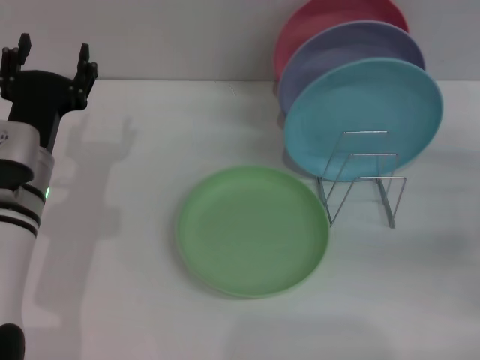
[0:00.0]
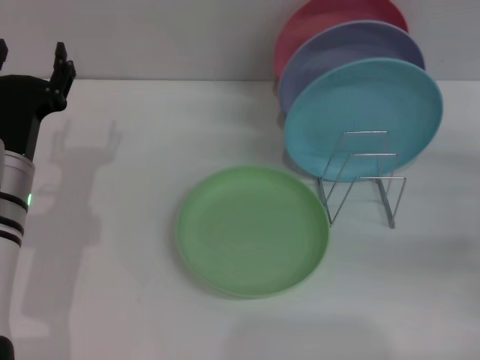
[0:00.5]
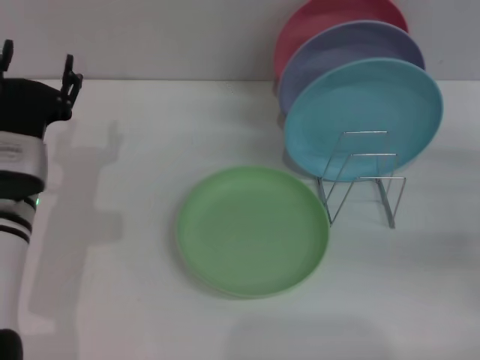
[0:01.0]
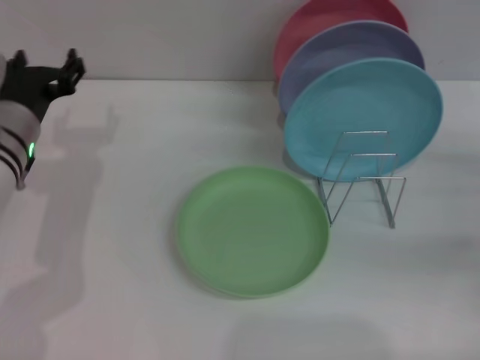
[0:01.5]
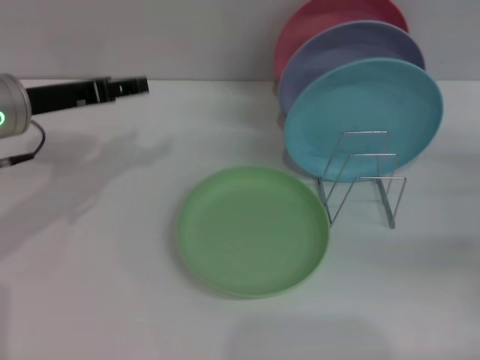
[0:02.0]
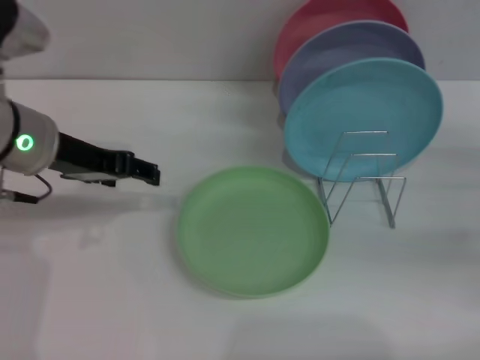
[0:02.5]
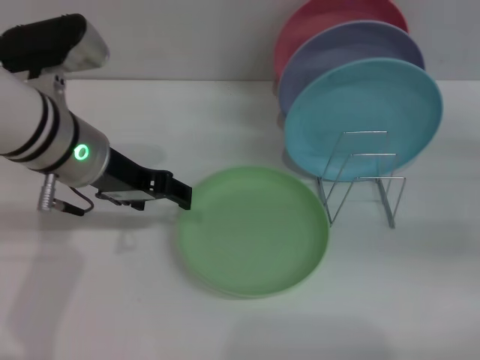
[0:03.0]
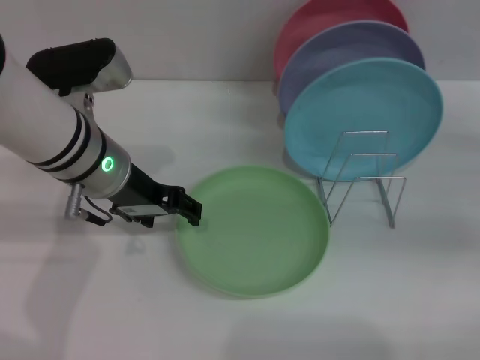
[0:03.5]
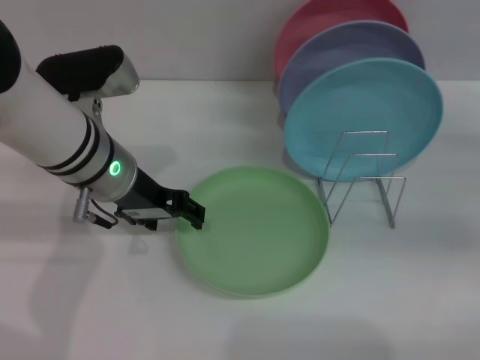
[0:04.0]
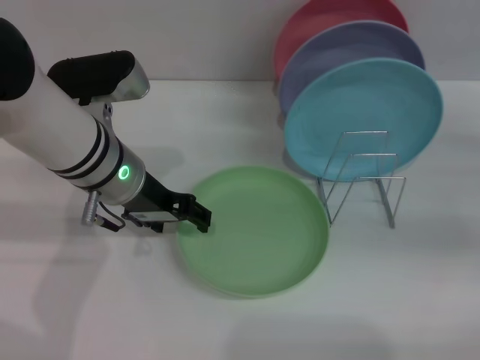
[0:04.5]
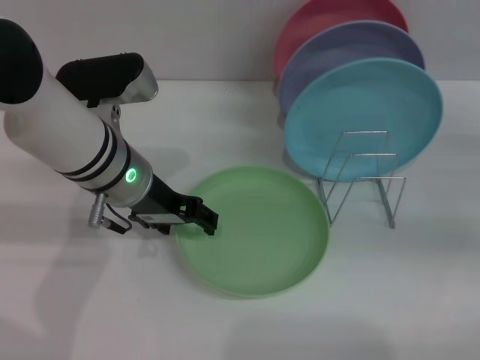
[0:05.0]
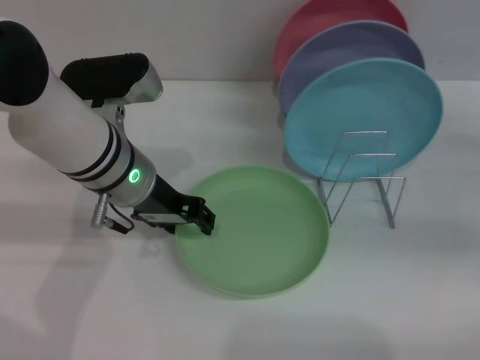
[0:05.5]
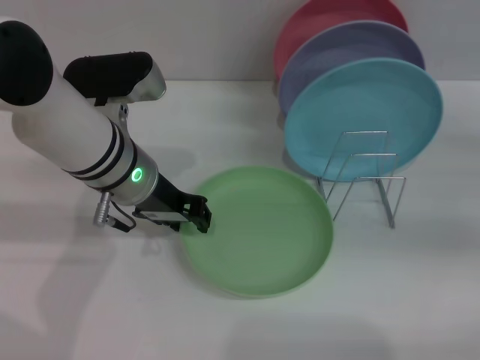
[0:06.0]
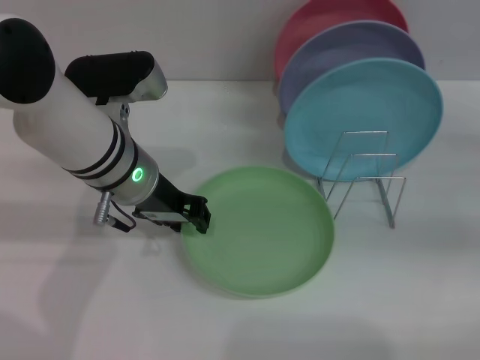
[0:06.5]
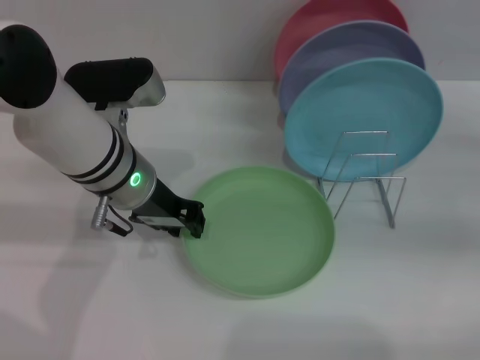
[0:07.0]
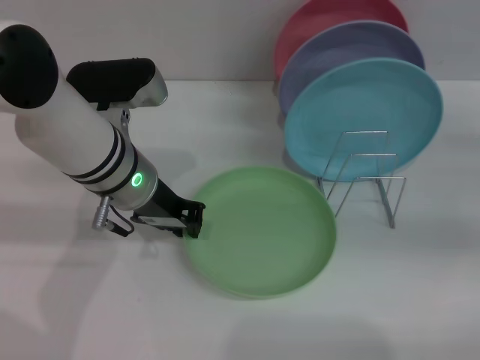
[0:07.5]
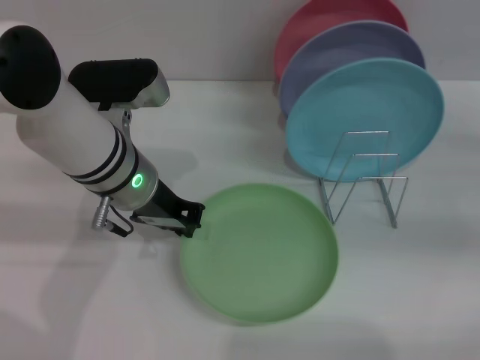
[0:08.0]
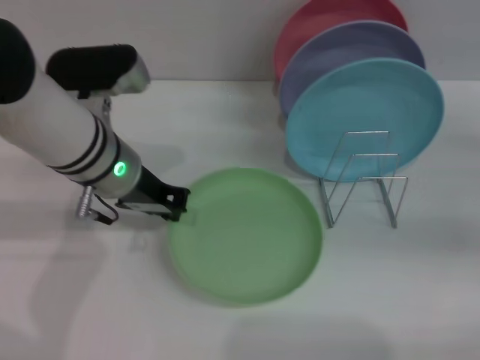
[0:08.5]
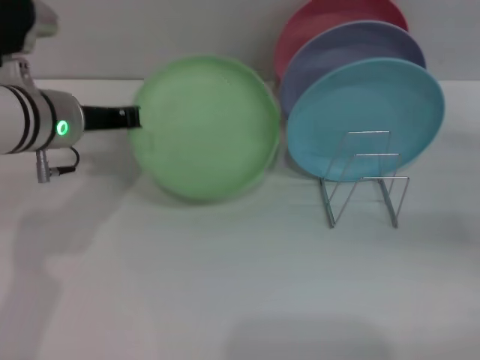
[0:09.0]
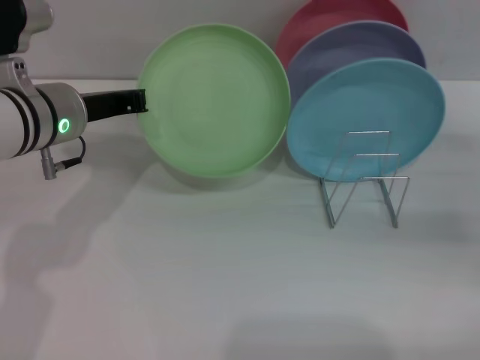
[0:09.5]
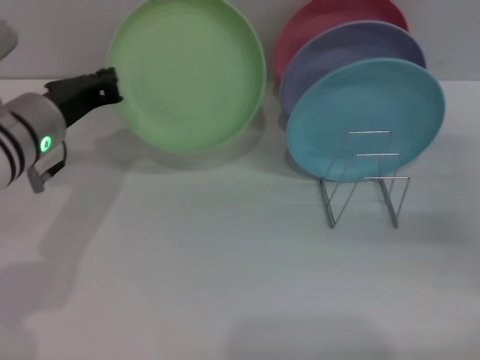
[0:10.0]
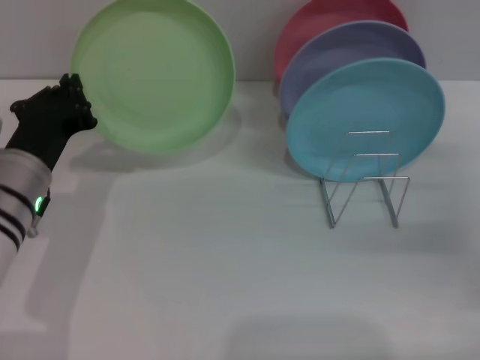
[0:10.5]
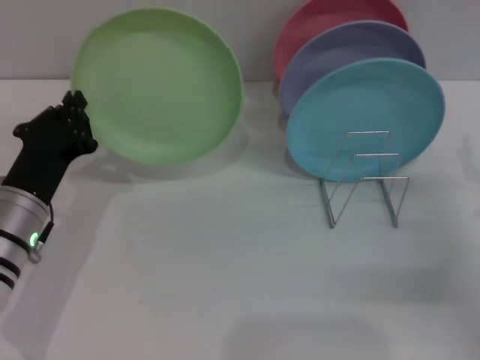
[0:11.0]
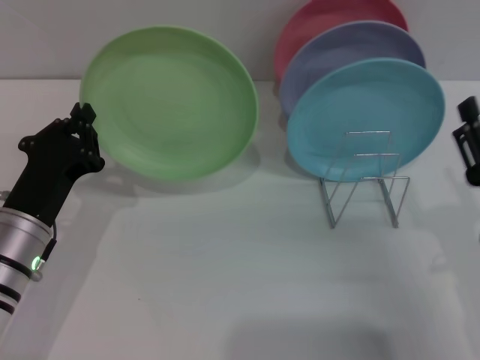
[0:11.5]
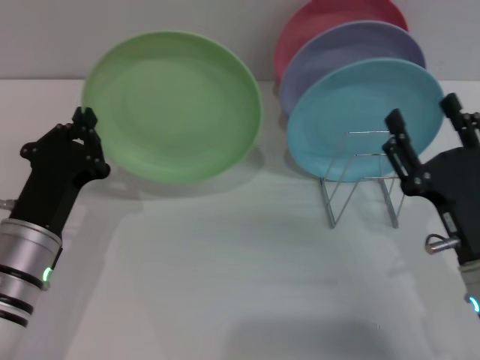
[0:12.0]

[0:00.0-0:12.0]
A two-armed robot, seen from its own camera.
Task of the whole recording: Grip the plate with one hand, pass it to the other, then set it on the shelf.
Step, 0:00.0 to 0:09.5: Pick up the plate with the left gripper.
0:00.0 to 0:02.0: The left gripper goes approximately 10 cm upward.
0:02.0 to 0:04.0: The left gripper shifts roughly 10 cm to the right.
0:04.0 to 0:06.0: The grippers move only a little.
0:06.0 to 0:08.0: The left gripper closes its fingers.
0:08.0 to 0:10.0: The left gripper is displaced to the left by approximately 10 cm.
0:10.0 to 0:12.0: The right gripper shifts some 20 cm to the left and backward; the left gripper goes approximately 15 cm backward and downward.

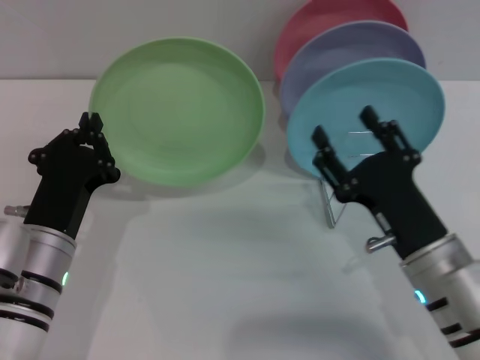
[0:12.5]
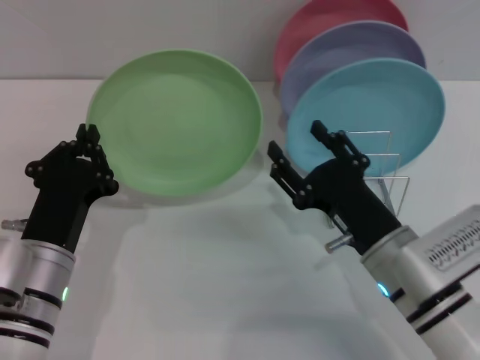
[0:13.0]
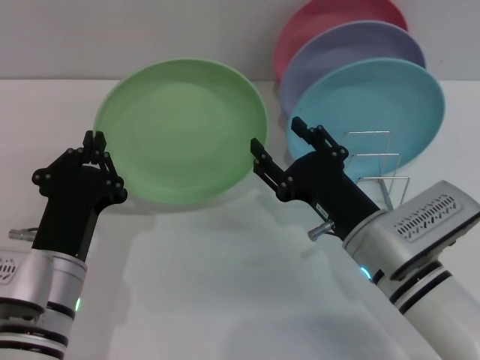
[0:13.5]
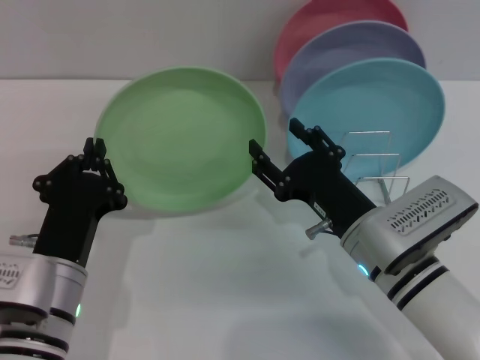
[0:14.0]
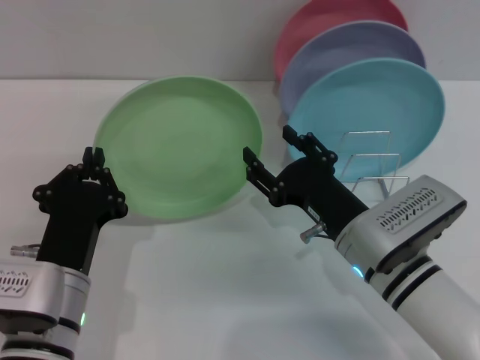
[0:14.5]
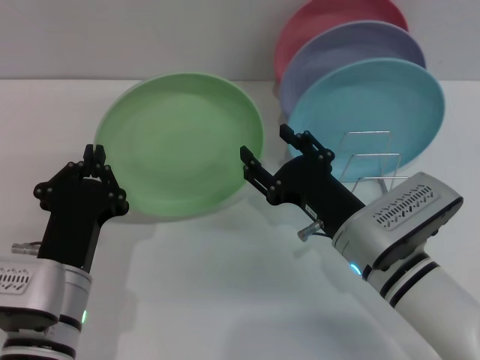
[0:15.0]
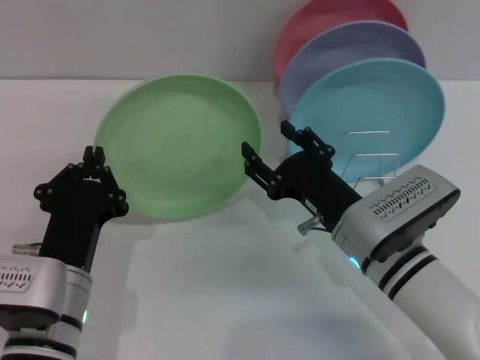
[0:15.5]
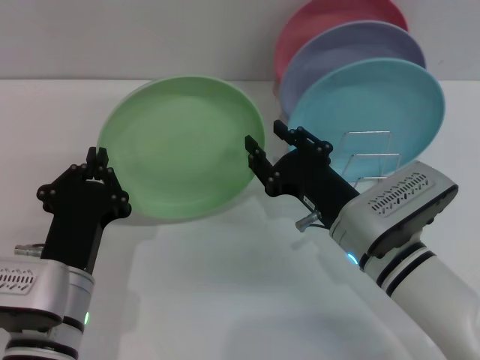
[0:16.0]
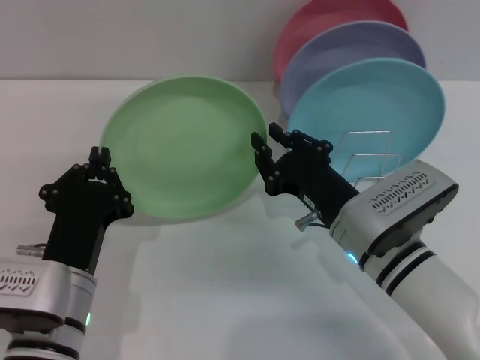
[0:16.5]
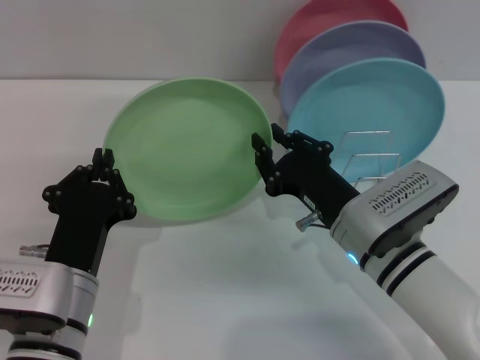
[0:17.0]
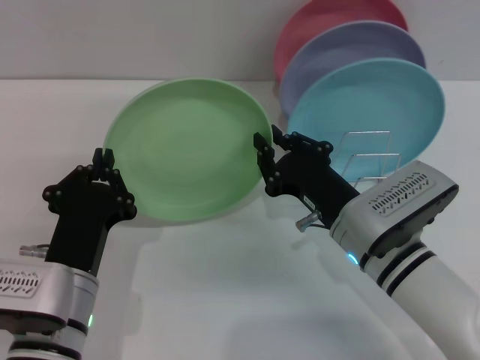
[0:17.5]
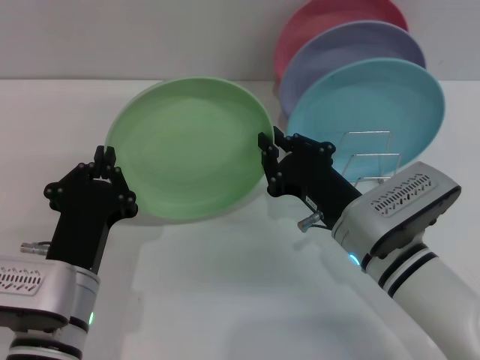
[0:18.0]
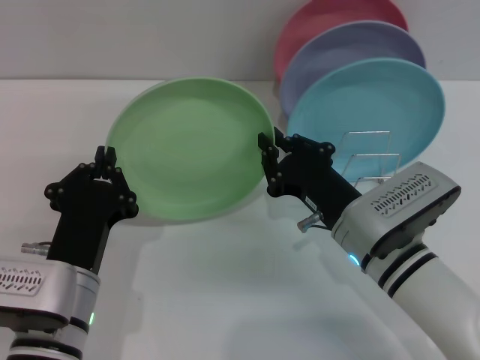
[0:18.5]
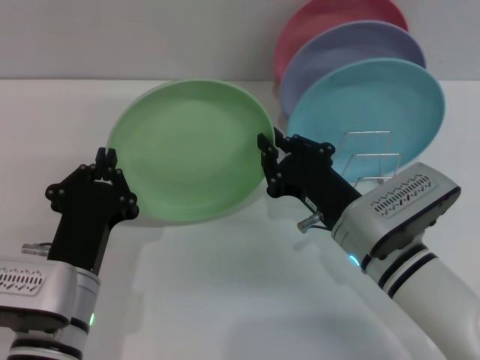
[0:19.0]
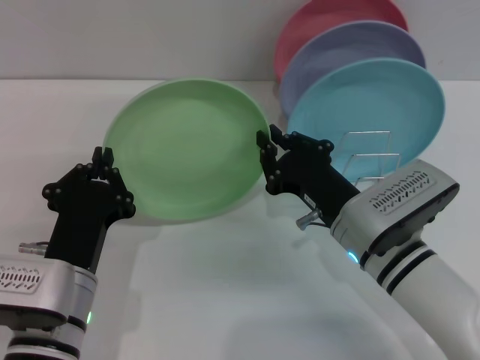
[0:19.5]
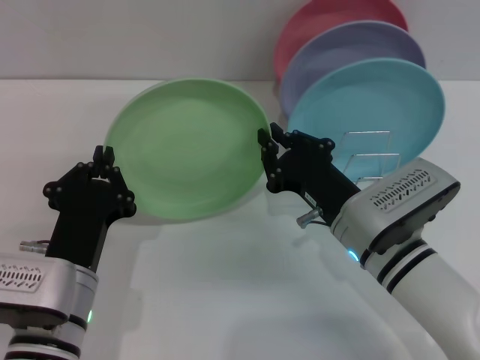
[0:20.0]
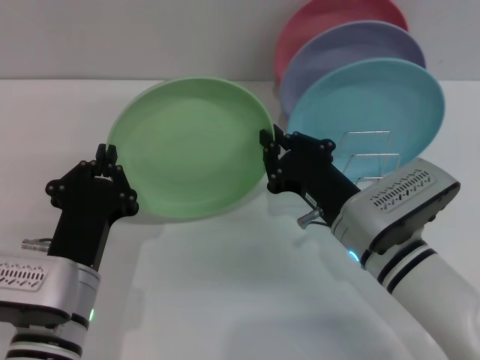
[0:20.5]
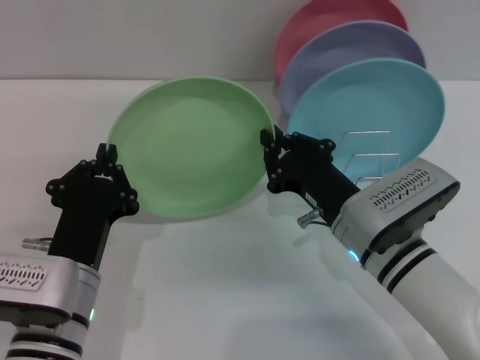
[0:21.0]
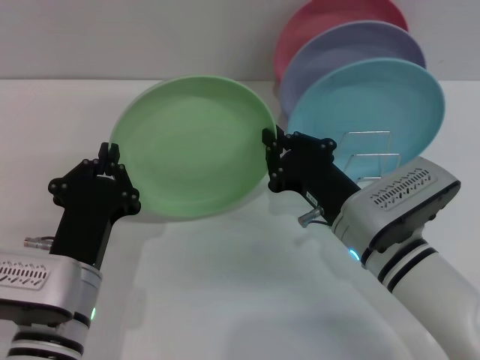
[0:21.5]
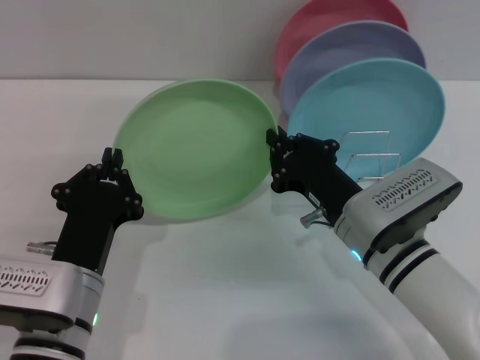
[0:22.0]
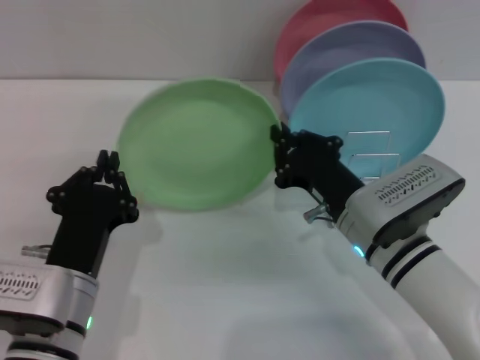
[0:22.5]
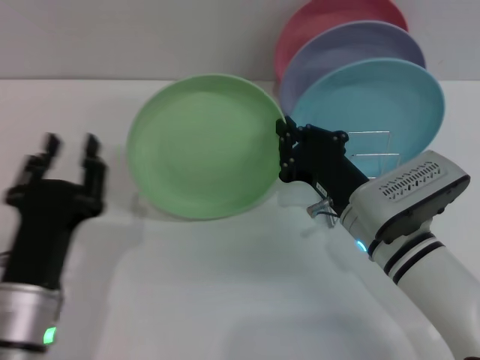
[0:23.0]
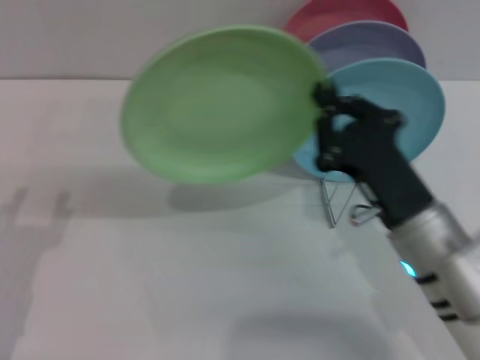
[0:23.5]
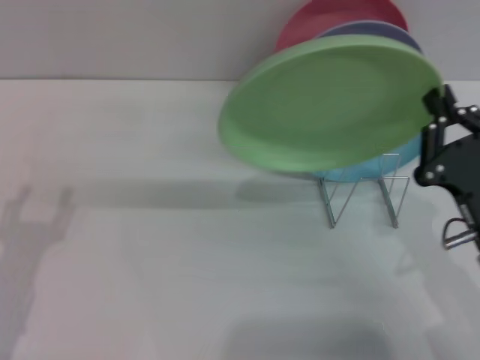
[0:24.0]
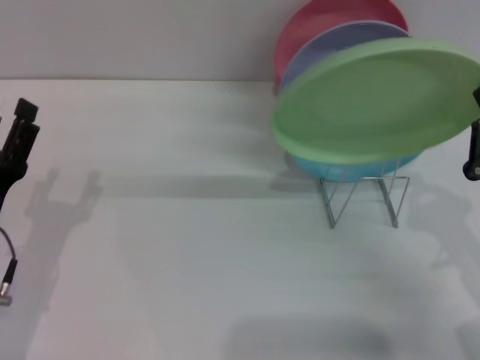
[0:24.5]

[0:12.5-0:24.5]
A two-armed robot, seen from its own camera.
Task of the whole recording: Grip the plate with one hand, pass it to the other, then set it on the shelf.
Step, 0:12.5 to 0:23.0: Pass the plate from the left gripper to the right gripper.
0:12.5 to 0:14.5: The right gripper moves approximately 5 cm.
0:14.5 to 0:16.5: The right gripper closes.
0:16.5 to 0:22.5: The two grippers keep their place.
0:22.5 to 0:24.5: The right gripper travels to the right and backward by roughly 15 cm. Meanwhile the left gripper goes roughly 10 cm to the left, and opens up.

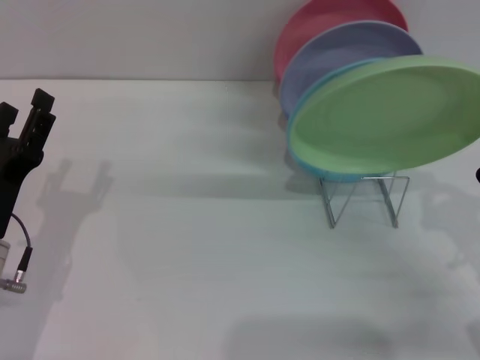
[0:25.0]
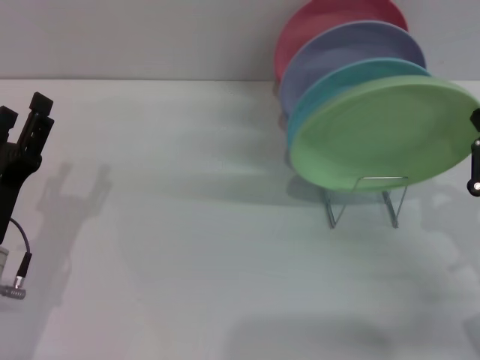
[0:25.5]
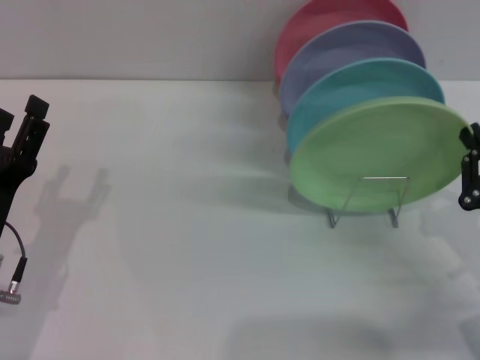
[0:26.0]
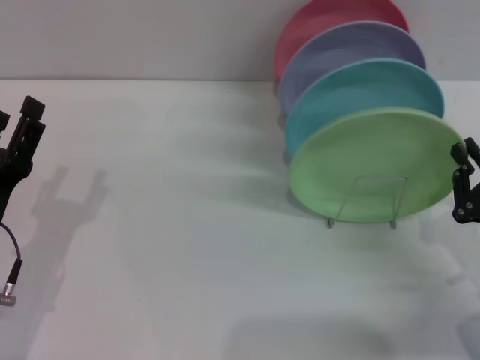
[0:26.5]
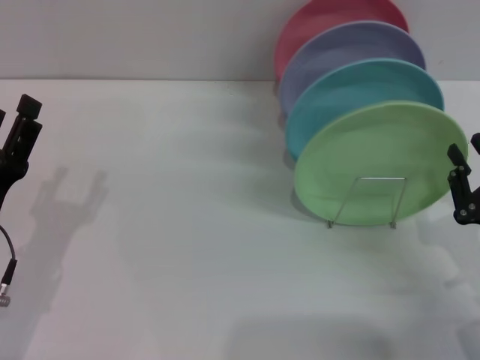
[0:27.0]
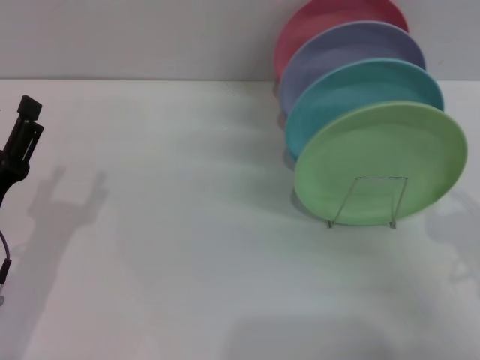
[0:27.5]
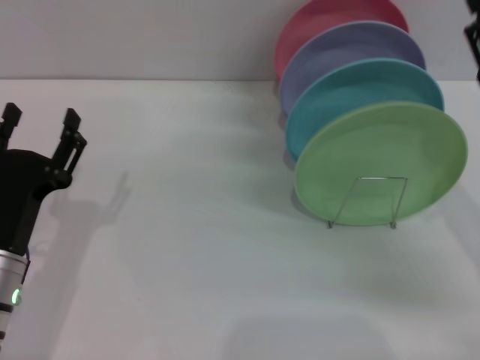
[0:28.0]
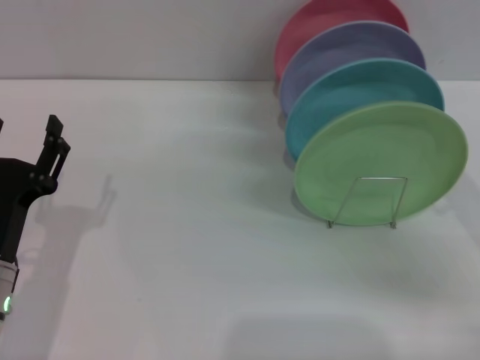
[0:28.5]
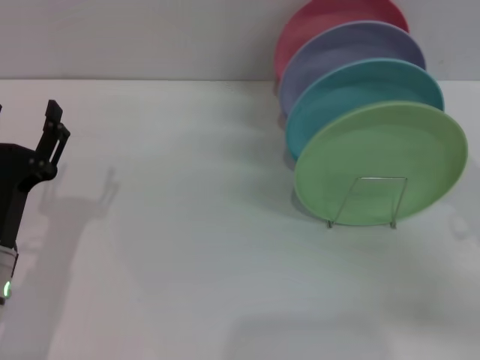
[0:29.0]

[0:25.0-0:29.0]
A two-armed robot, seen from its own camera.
Task of the whole recording: Grip the plate with one hand, pass it to the other, then set it on the shelf.
Step, 0:25.0 to 0:27.0: Place the plate on the shelf with the right gripper.
0:25.0 to 0:27.0: The grippers stay close to where they were, moving slightly.
0:27.0 to 0:29.0: The right gripper moves upward, roughly 5 cm, and opens up.
